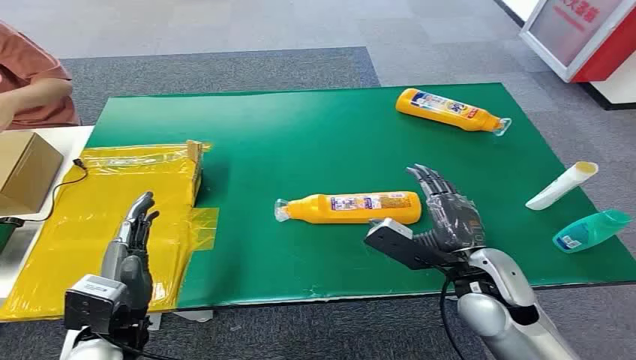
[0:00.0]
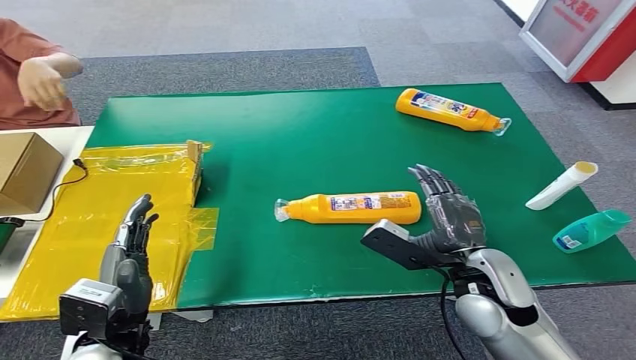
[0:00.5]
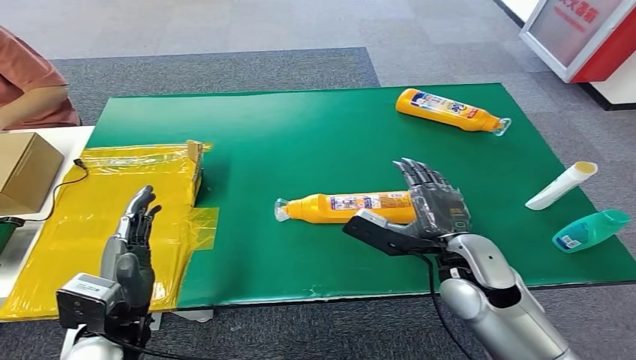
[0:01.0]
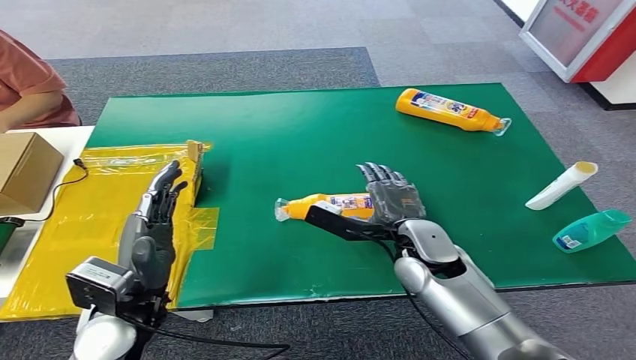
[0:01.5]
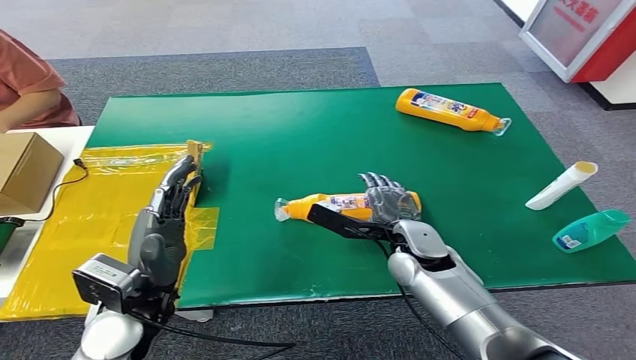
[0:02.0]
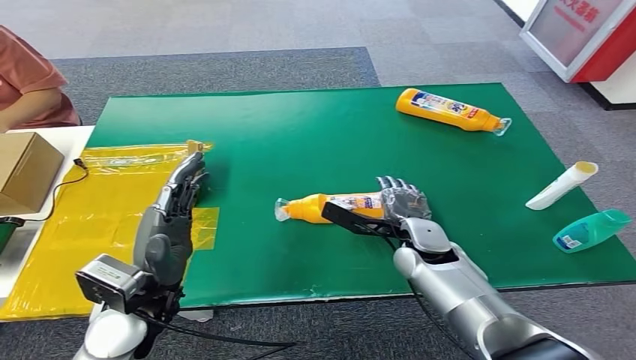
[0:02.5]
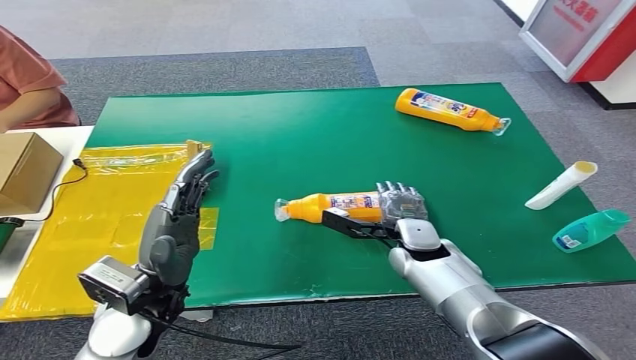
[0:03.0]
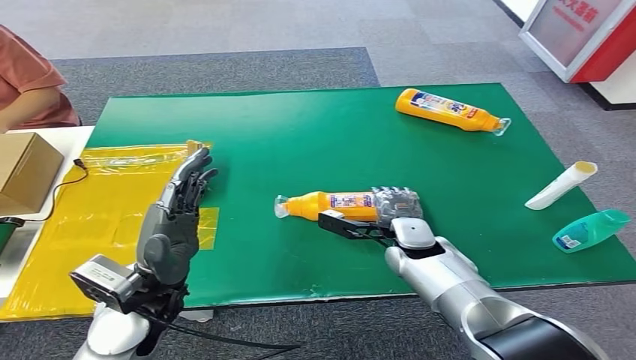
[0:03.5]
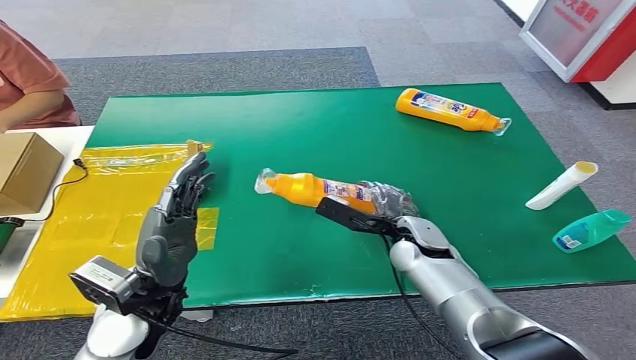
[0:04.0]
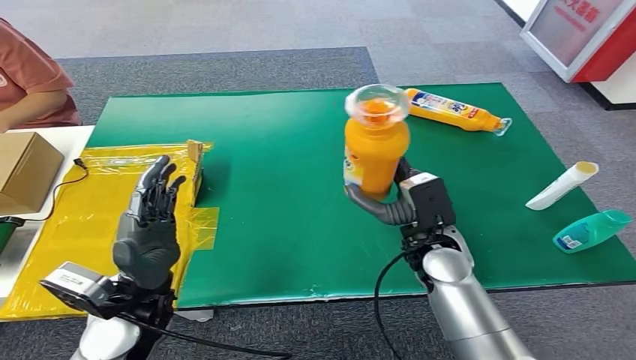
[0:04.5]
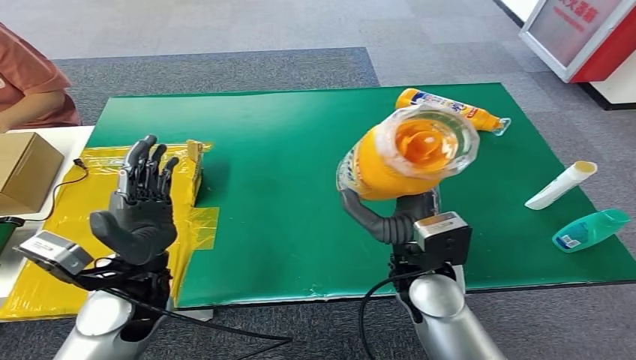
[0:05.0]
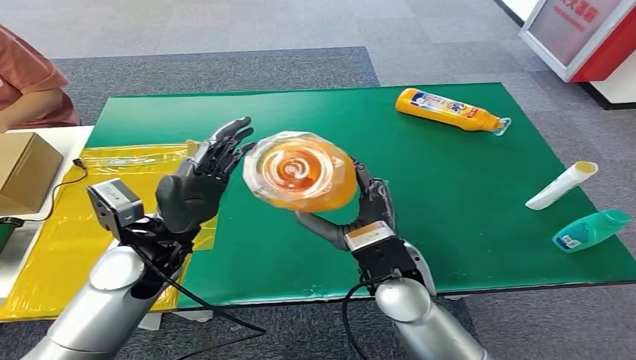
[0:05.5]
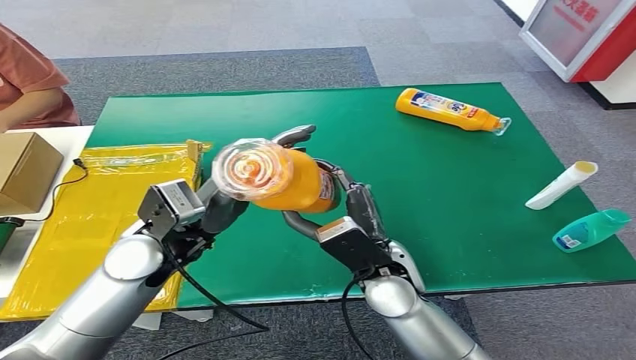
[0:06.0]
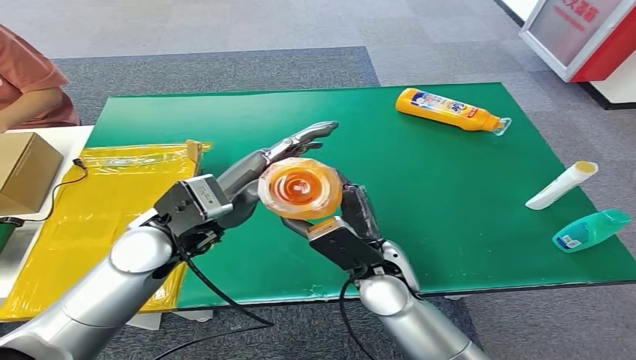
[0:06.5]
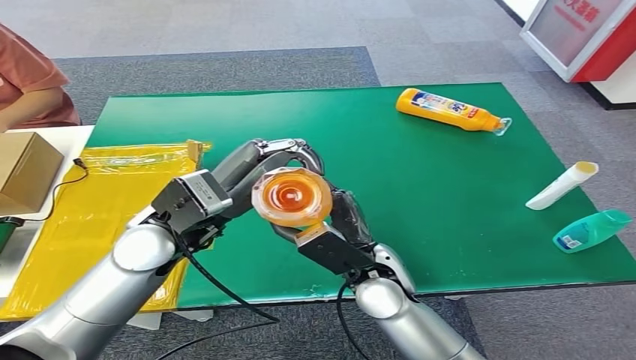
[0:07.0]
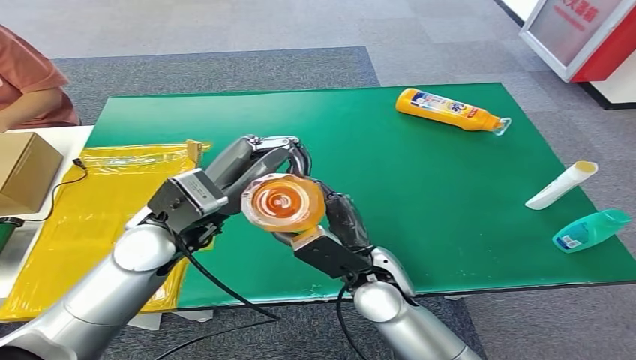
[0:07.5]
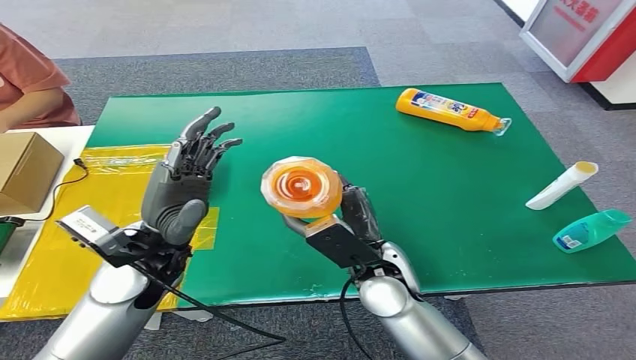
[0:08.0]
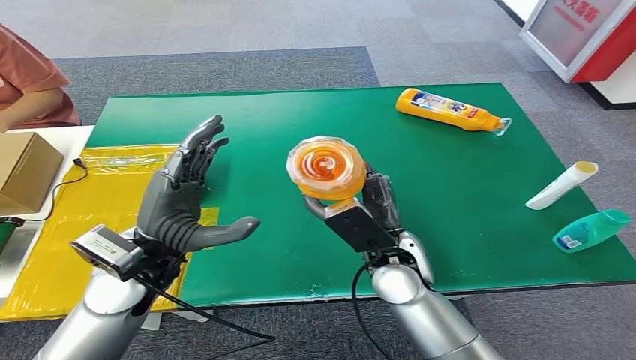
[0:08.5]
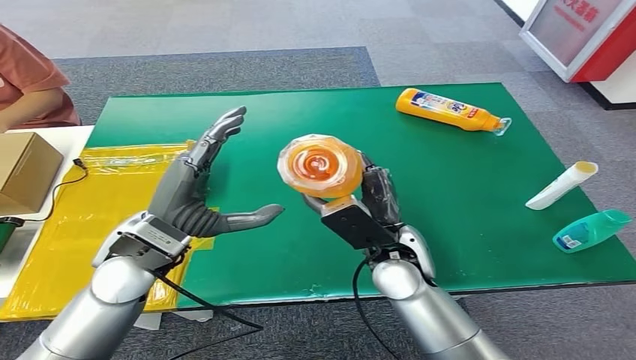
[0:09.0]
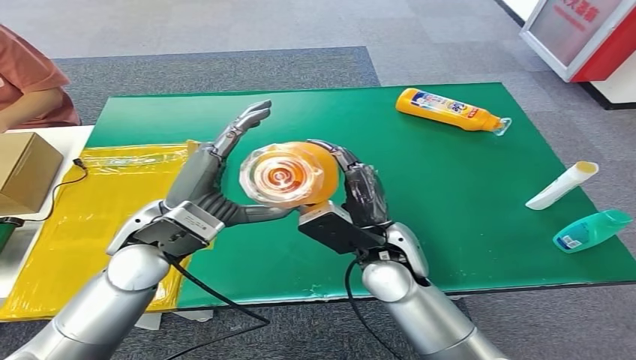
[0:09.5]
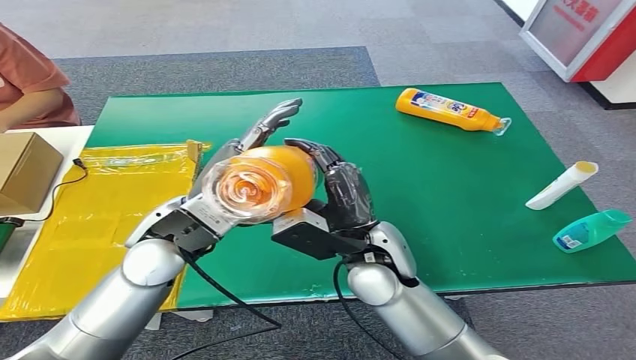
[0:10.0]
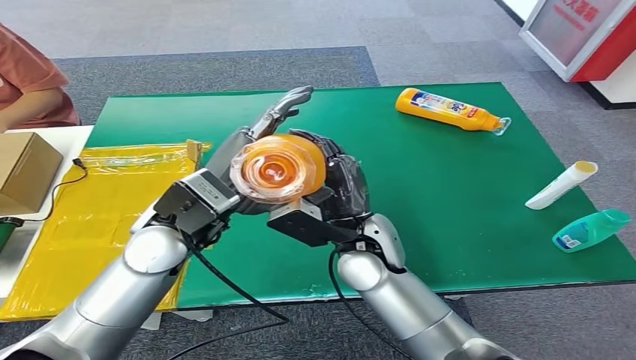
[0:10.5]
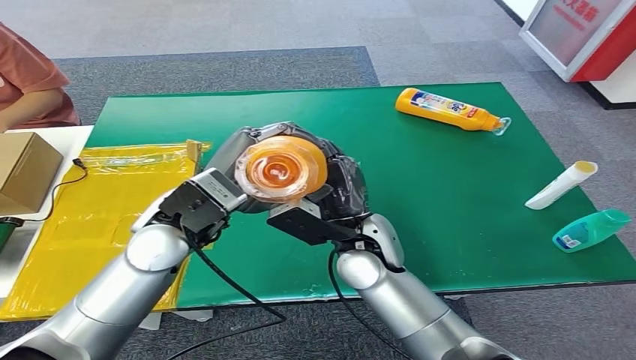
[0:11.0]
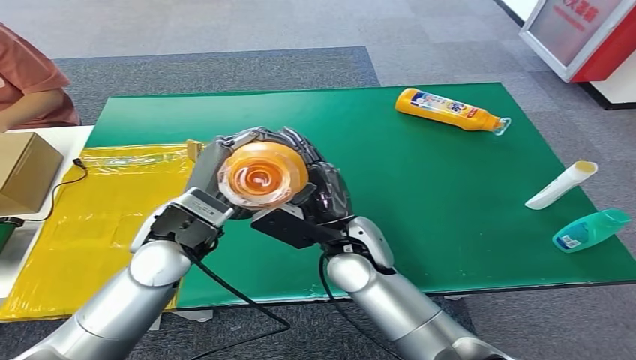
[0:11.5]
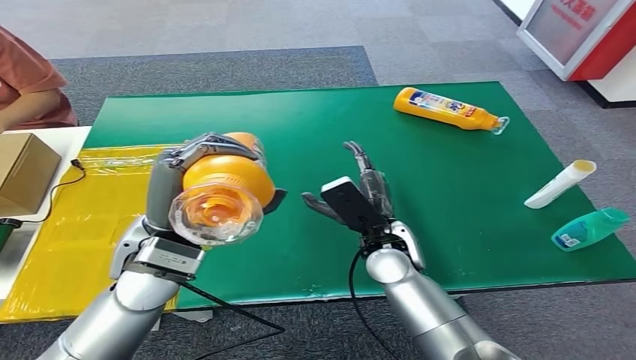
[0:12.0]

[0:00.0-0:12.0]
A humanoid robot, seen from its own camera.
Step, 0:00.0 to 0:05.5: Pick up the bottle from the table.
0:08.0 to 0:10.0: The right hand ends up some 5 cm from where it was, while the left hand changes place by roughly 5 cm.

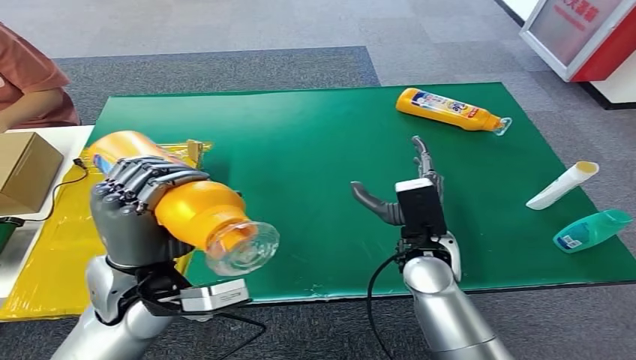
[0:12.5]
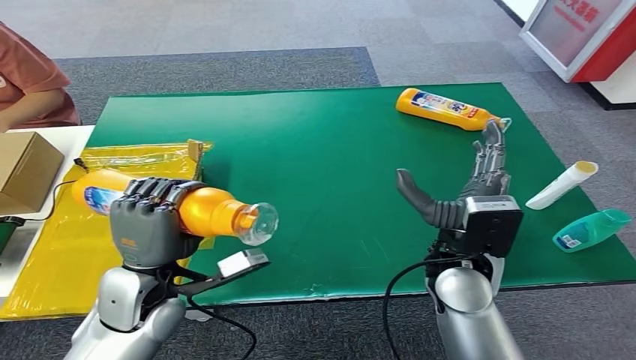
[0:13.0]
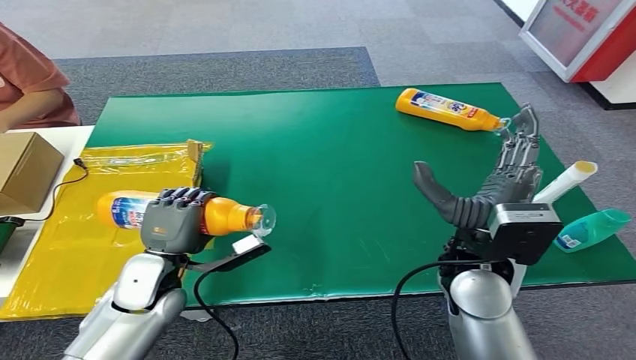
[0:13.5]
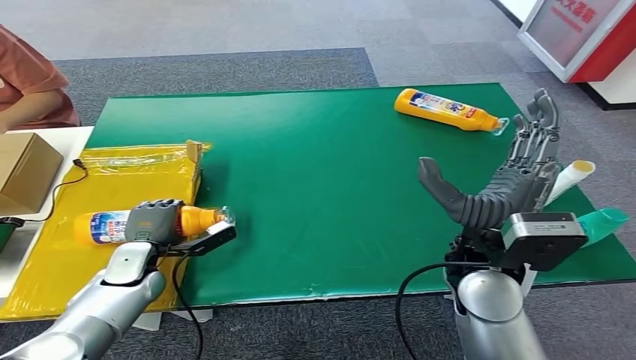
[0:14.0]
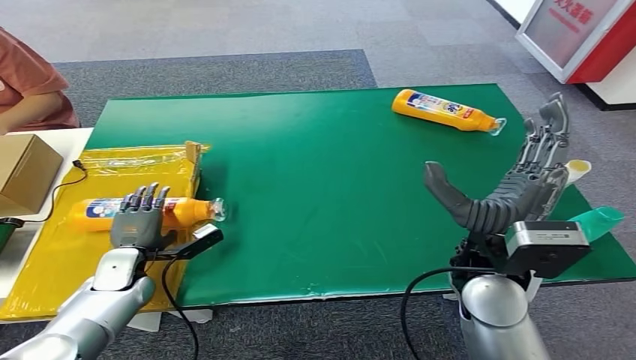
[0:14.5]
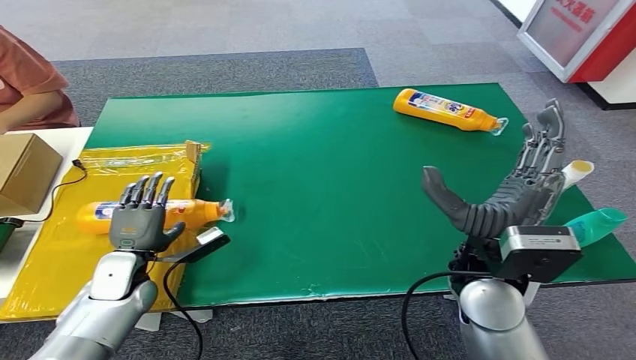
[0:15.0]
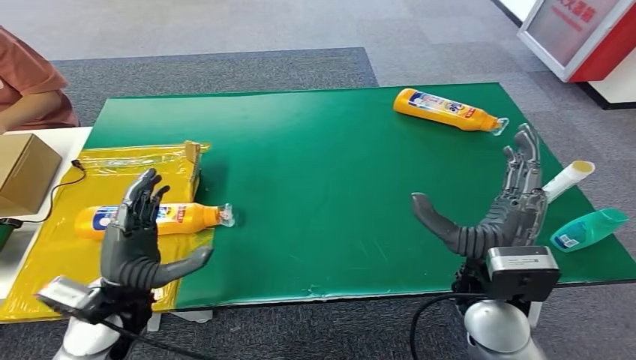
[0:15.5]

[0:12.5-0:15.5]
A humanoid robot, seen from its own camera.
Step, 0:12.5 to 0:15.5: Turn the bottle to the front side.
0:14.0 to 0:15.5: The left hand goes roughly 15 cm upward, backward and to the right.
